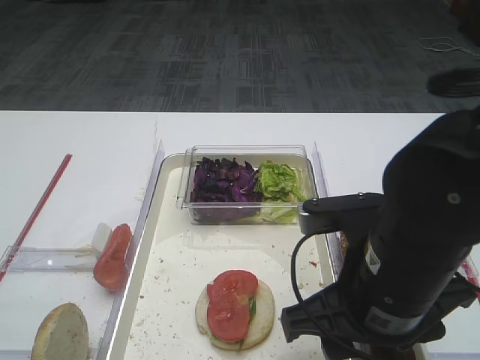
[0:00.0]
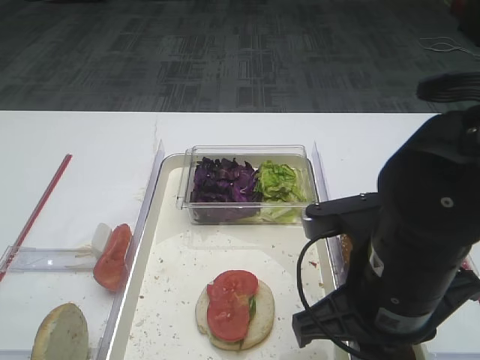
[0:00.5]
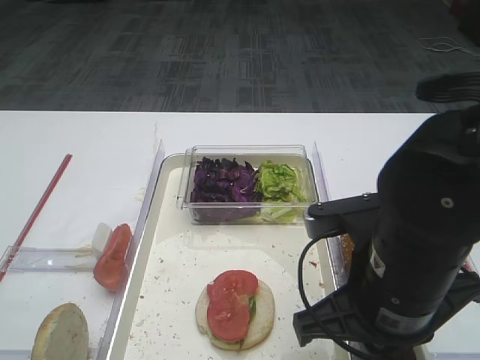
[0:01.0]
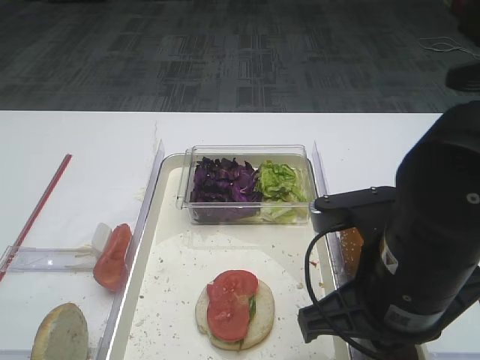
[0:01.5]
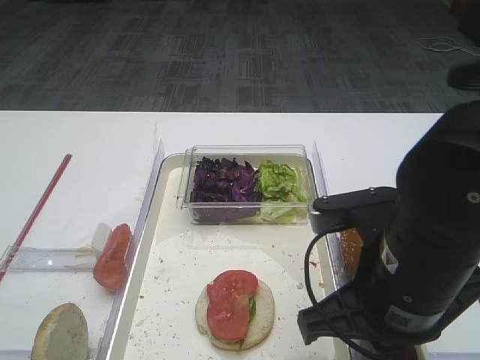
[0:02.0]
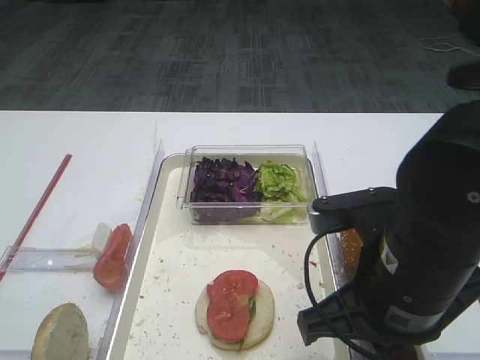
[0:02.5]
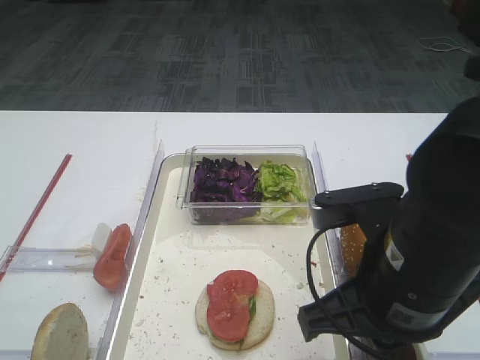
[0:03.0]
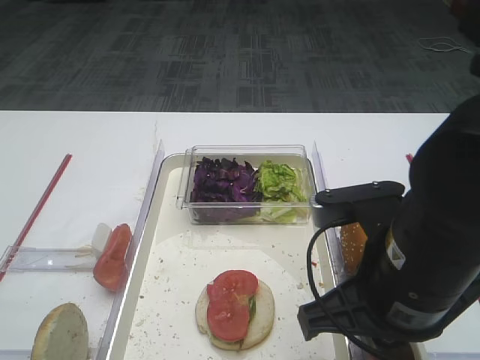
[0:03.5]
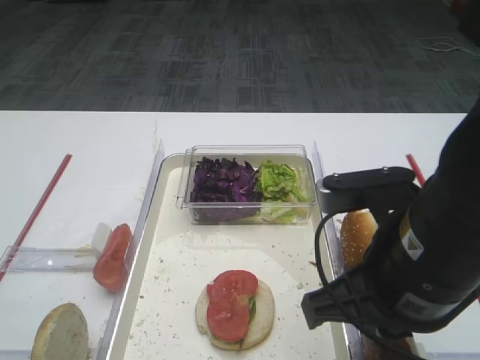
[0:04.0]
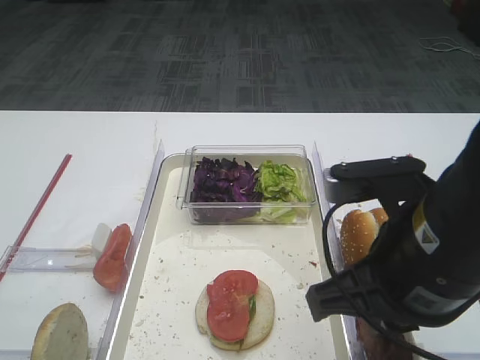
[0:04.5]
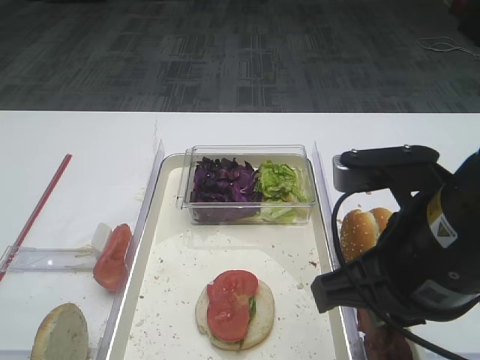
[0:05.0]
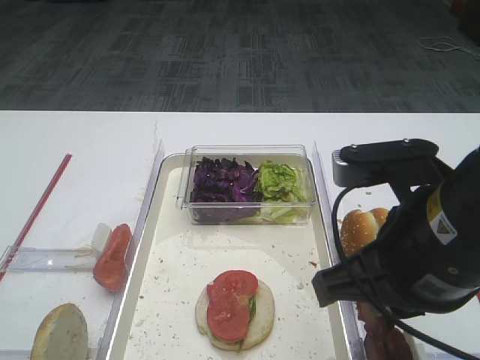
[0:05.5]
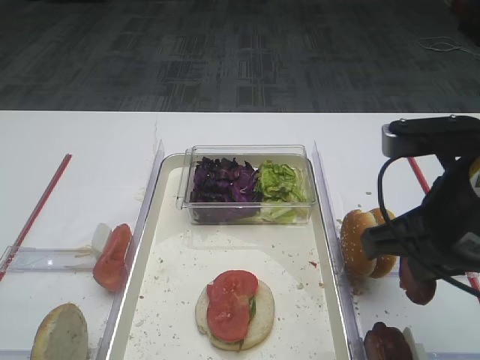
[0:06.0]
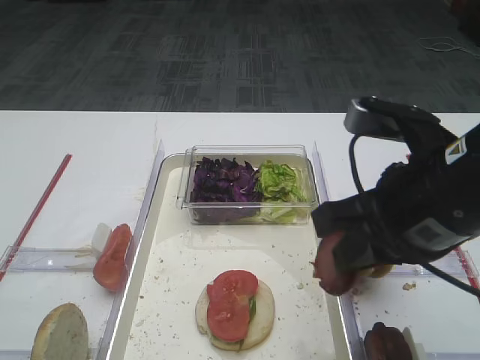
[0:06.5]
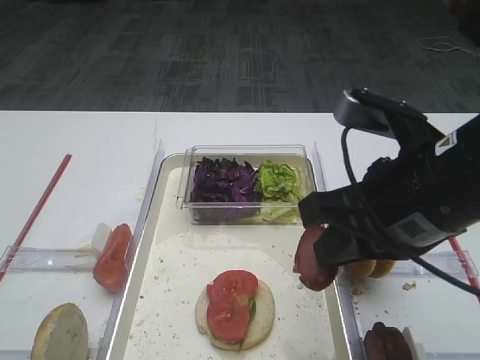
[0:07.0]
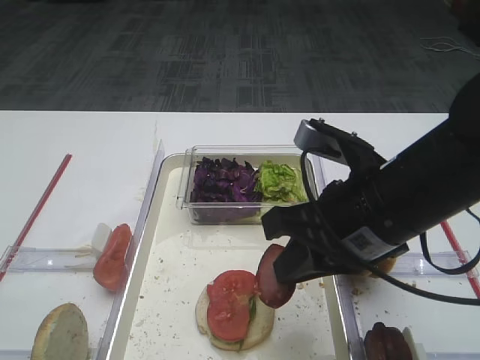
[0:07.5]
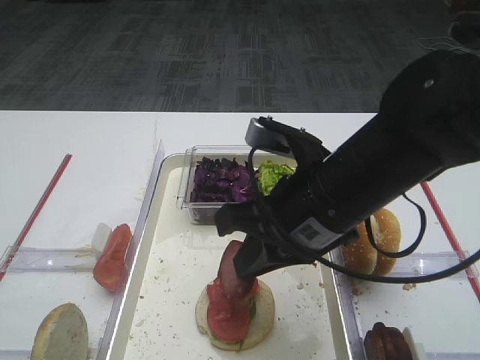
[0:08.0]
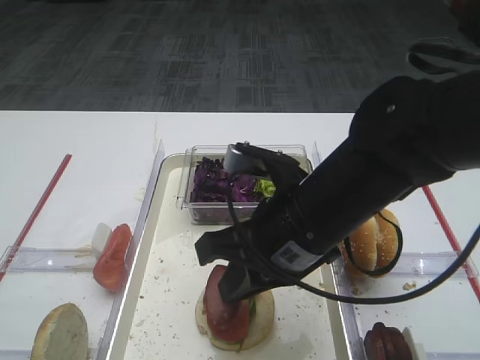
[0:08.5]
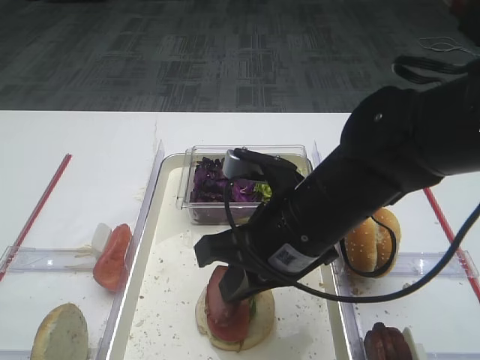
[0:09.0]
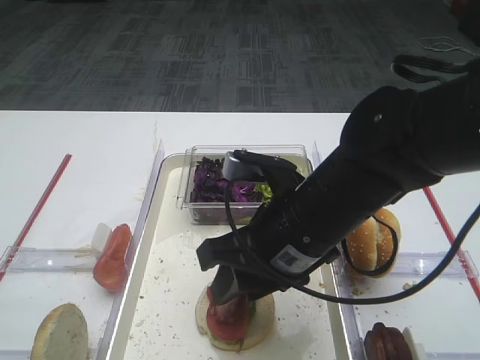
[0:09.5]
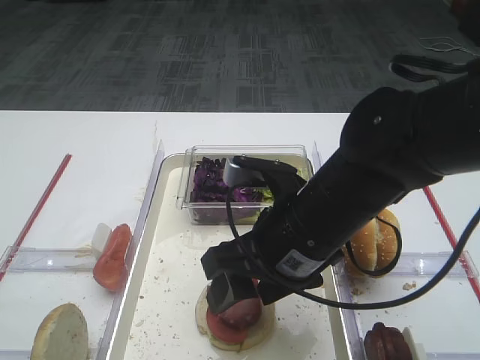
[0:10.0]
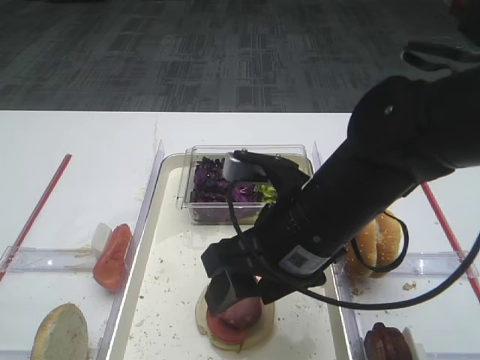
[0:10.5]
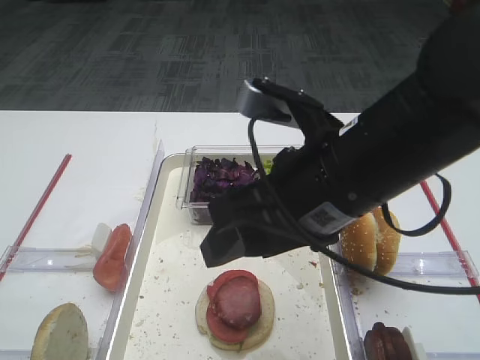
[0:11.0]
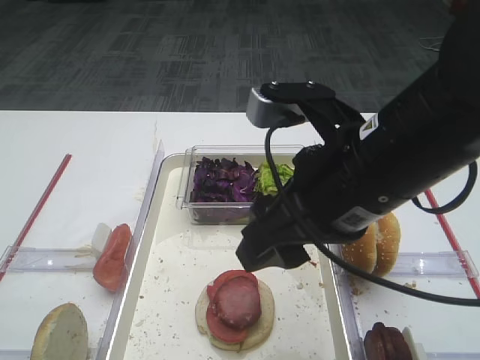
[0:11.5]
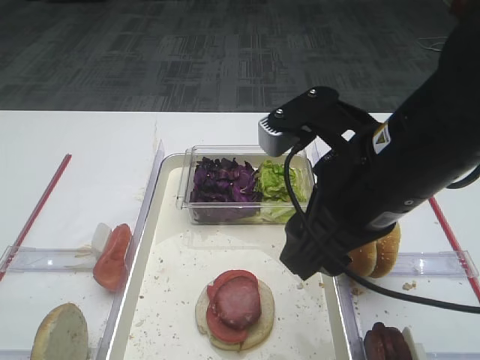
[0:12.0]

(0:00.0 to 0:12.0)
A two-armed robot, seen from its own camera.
Step, 0:00.0 - 0:05.0: Pick up the cutlet with the right gripper.
Step, 0:05.5 - 0:11.0: Place the cutlet on the tomato slice with the right gripper.
0:00.0 - 0:02.0: The right gripper closes up.
0:02.0 - 0:04.0: The grippers move only a little.
0:04.0 - 0:06.0: The right gripper moves some 5 cm.
0:06.0 - 0:08.0: The right gripper travels to the left by roughly 10 cm.
0:08.0 - 0:10.0: The right gripper opens up.
0:10.0 - 0:12.0: The right gripper is displaced upward by about 5 cm.

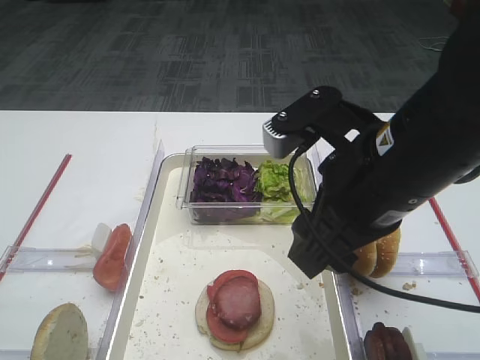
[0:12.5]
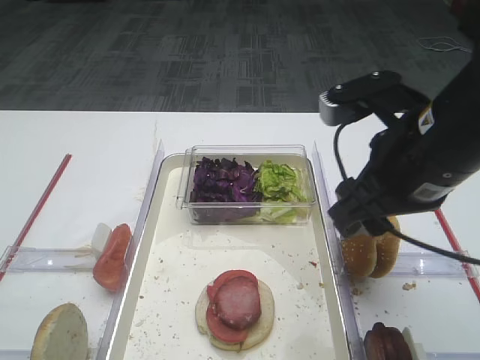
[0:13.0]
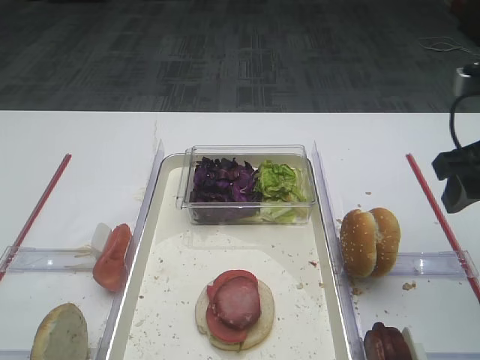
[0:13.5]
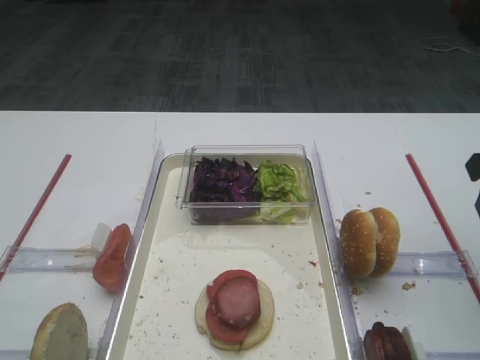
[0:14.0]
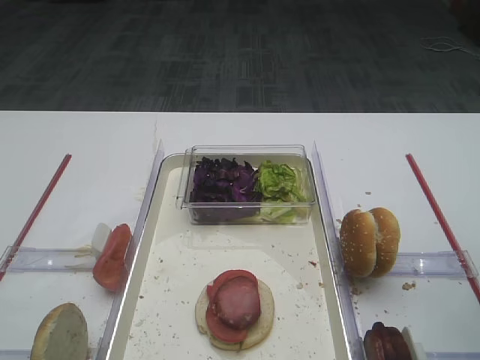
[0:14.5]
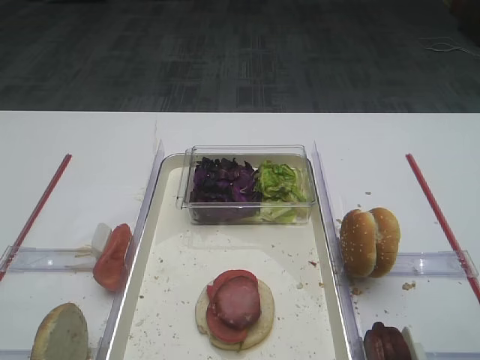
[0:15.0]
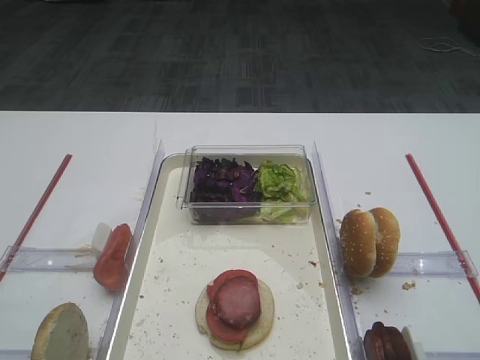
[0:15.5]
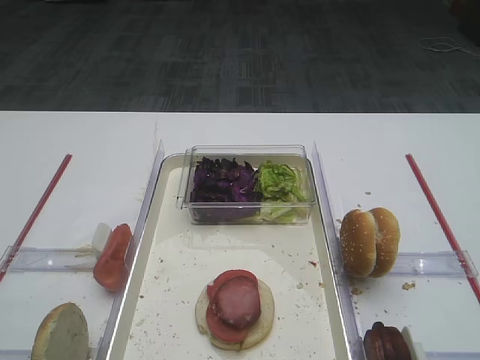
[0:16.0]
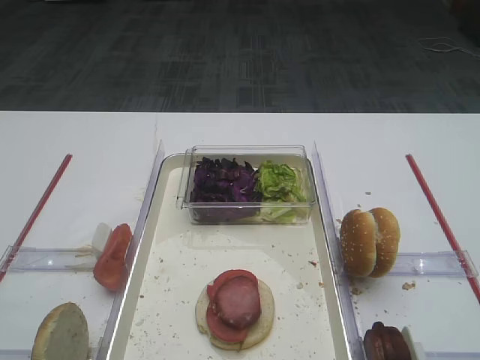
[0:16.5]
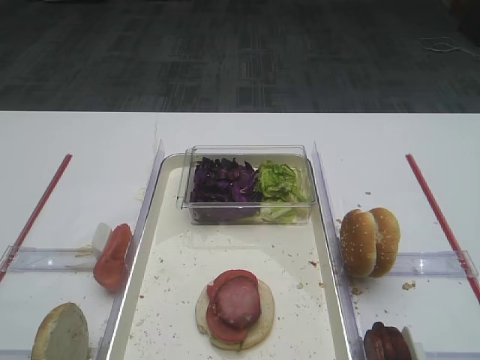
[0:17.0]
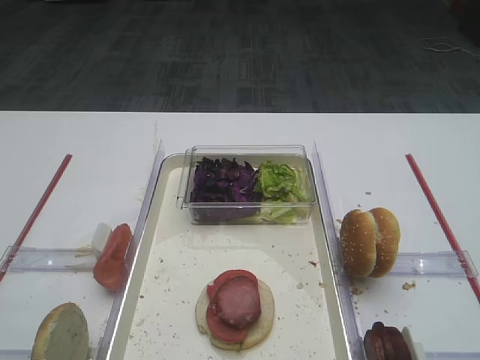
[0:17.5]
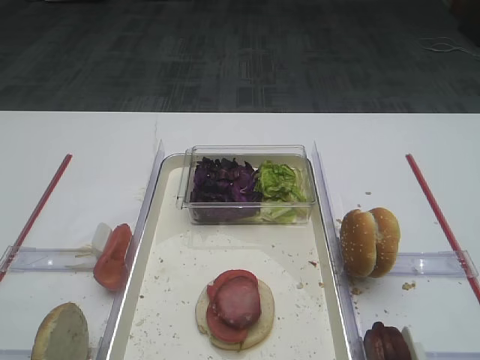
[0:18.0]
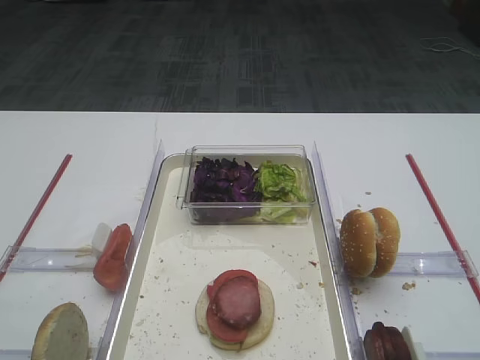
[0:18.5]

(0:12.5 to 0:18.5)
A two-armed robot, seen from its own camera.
0:12.5 - 0:14.5: The right gripper moves to the right, roughly 20 cm.
0:14.5 - 0:16.5: The right gripper travels backward by roughly 20 cm.
0:16.5 - 0:18.5: Neither gripper changes place.

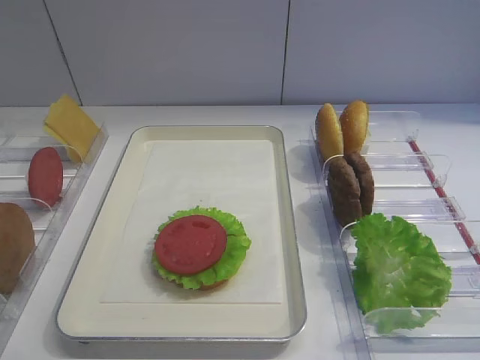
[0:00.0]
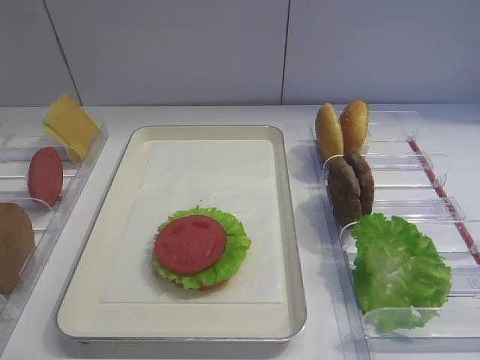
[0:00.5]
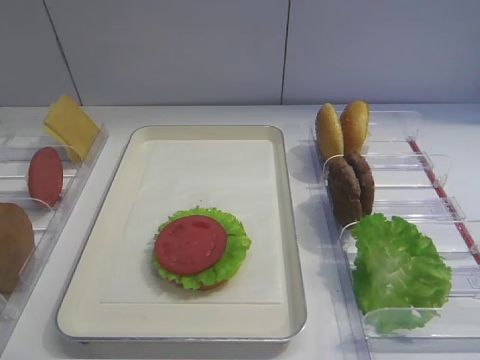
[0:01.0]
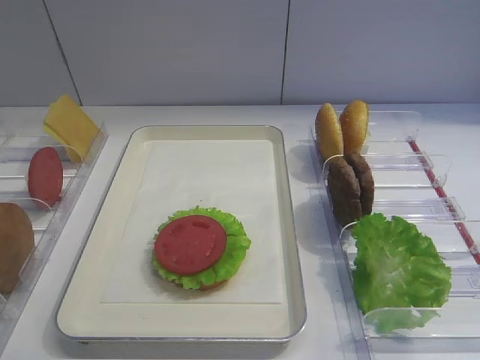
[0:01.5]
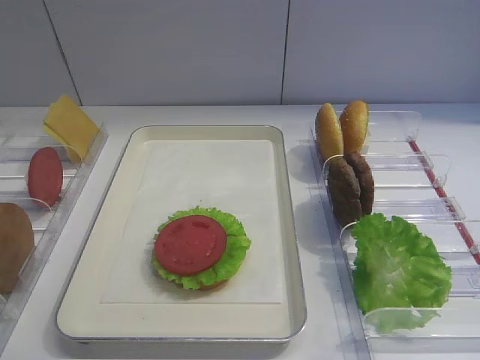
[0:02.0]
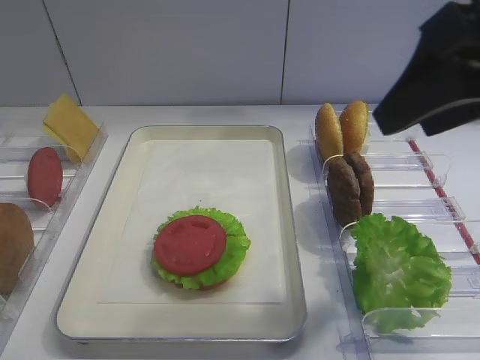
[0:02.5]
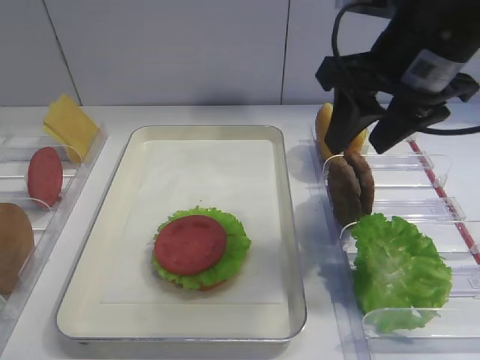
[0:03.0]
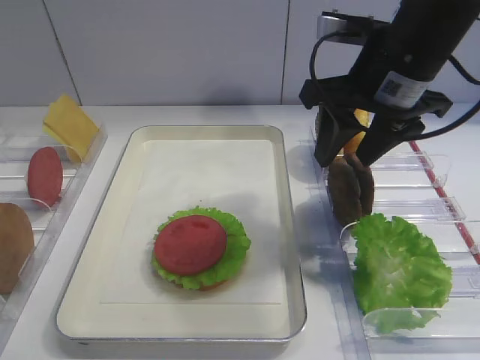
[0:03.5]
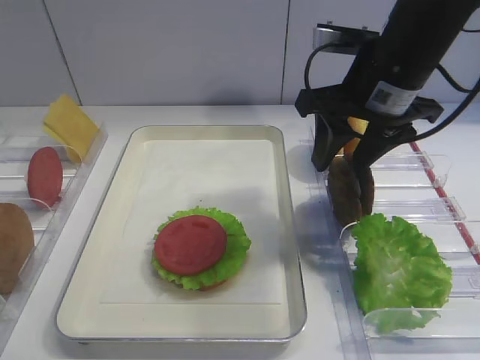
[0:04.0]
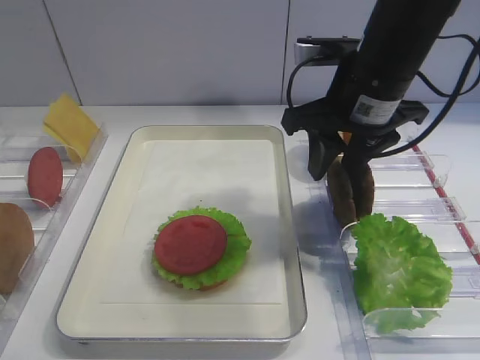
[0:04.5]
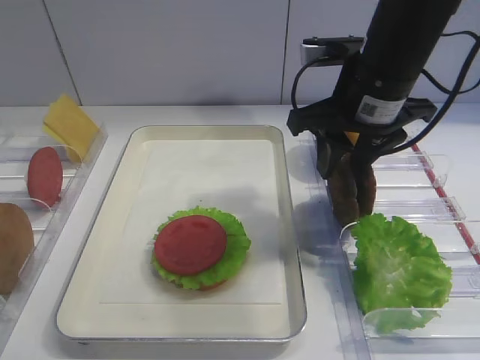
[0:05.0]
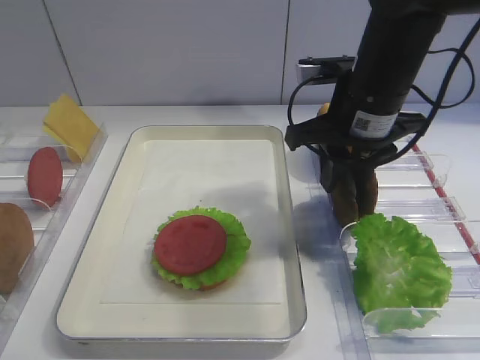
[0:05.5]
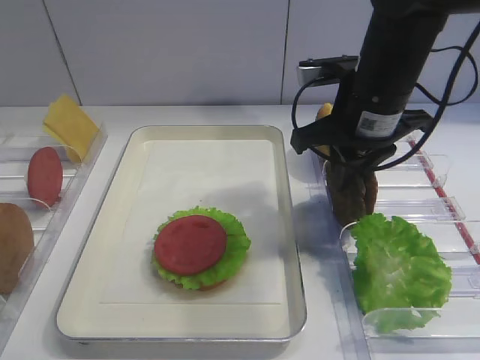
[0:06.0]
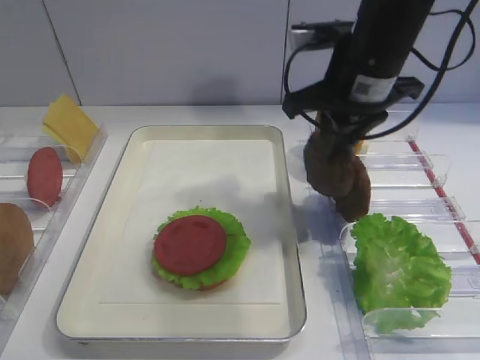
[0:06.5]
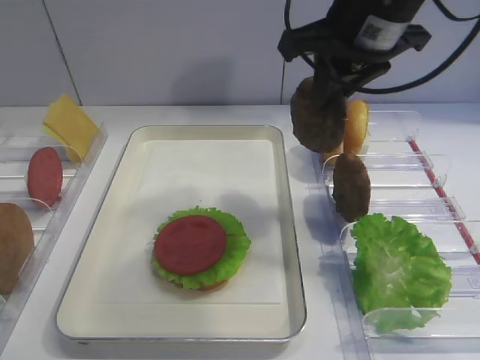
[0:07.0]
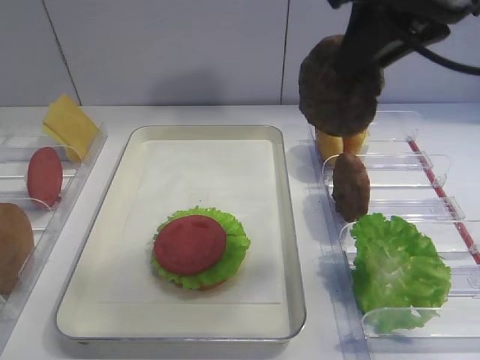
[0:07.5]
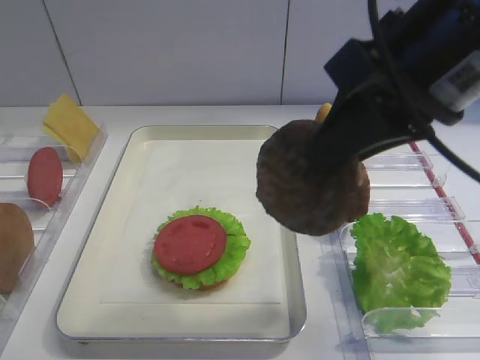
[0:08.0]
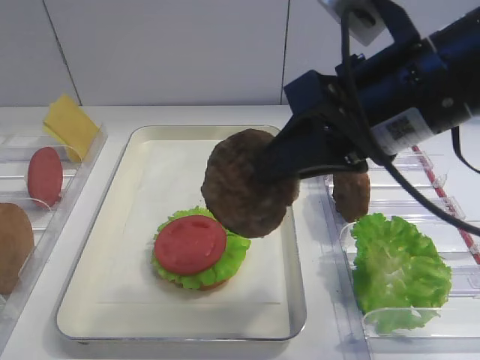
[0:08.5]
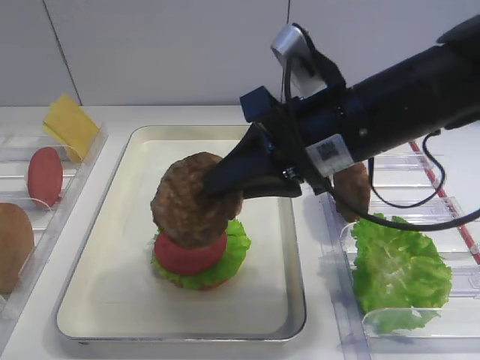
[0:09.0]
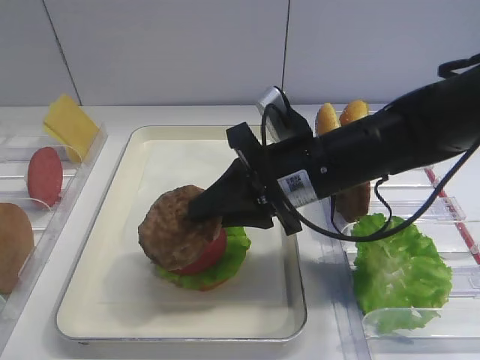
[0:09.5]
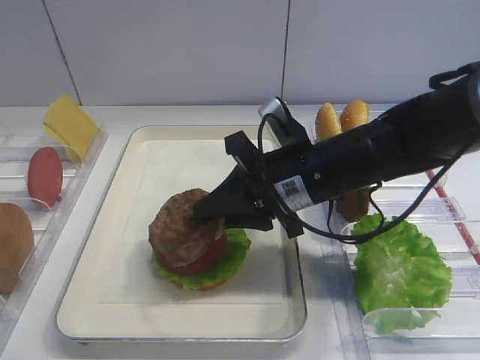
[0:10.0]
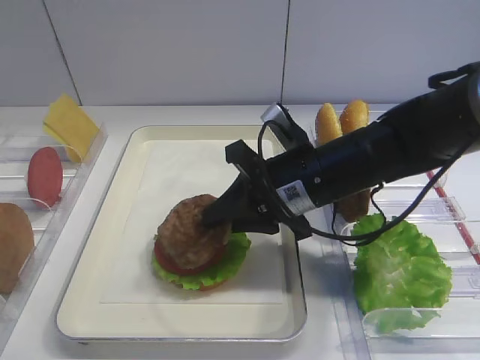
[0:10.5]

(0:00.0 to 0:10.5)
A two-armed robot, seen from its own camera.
Step, 0:00.0 - 0:07.0: Pick up the cutlet with the right gripper.
0:02.0 - 0:04.0: The right gripper is displaced forward and downward by some 25 cm.
0:04.0 - 0:06.5: The right gripper closes its fingers.
0:06.5 - 0:08.5: The right gripper shifts approximately 15 cm backward.
0:08.5 - 0:10.5: The right gripper is displaced downward and forward by about 15 cm.
